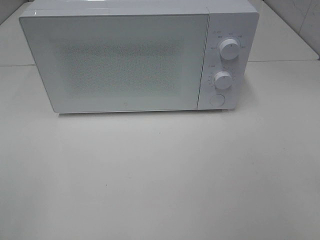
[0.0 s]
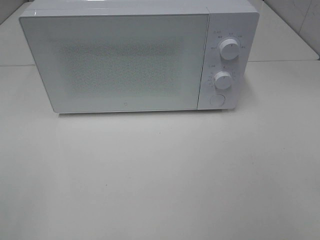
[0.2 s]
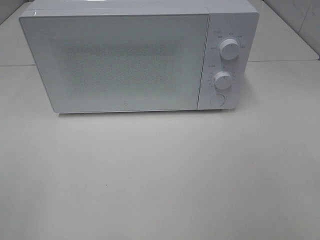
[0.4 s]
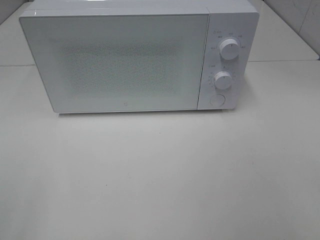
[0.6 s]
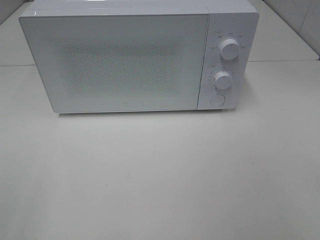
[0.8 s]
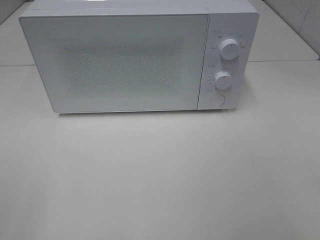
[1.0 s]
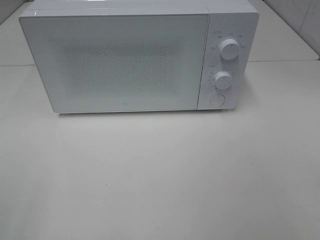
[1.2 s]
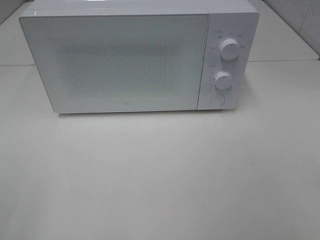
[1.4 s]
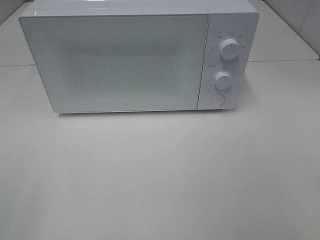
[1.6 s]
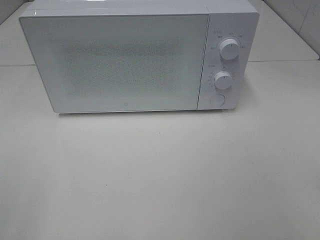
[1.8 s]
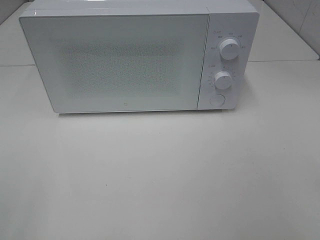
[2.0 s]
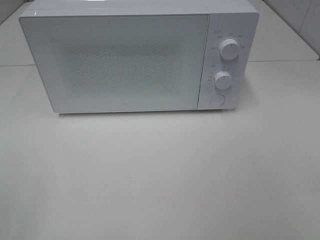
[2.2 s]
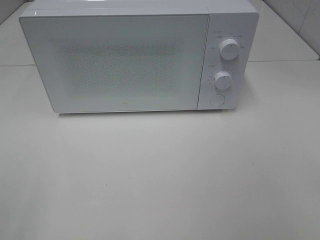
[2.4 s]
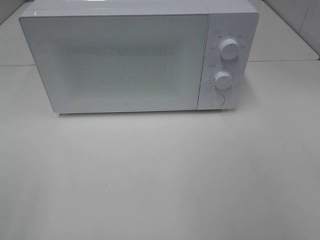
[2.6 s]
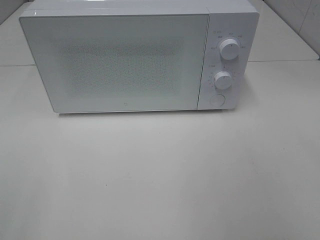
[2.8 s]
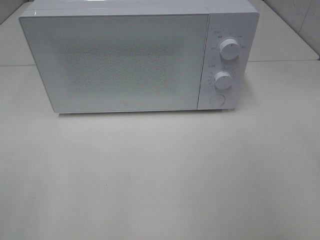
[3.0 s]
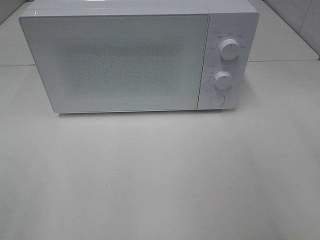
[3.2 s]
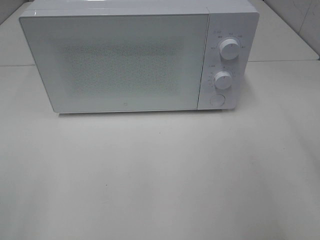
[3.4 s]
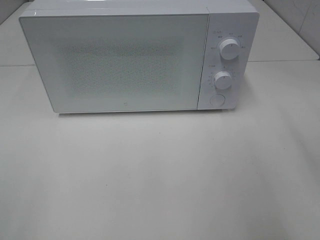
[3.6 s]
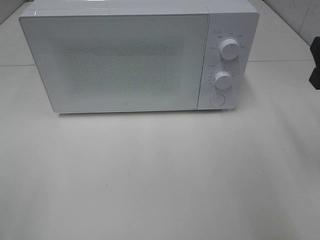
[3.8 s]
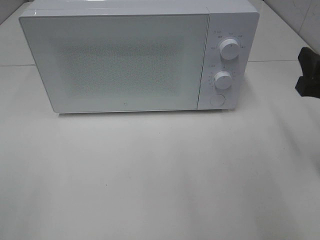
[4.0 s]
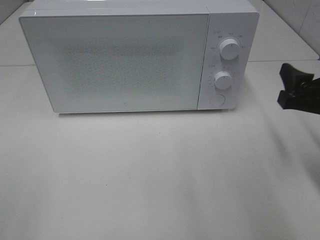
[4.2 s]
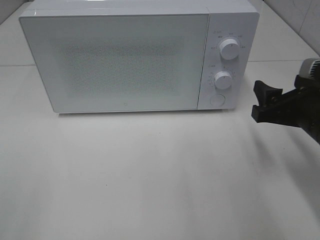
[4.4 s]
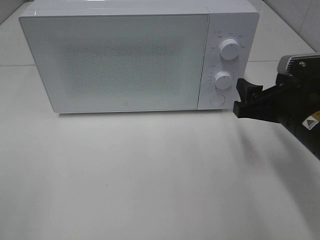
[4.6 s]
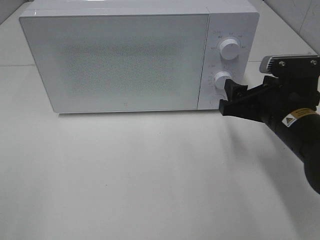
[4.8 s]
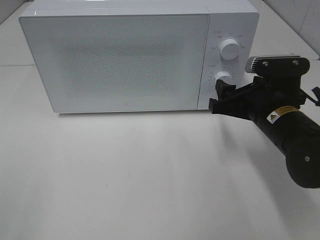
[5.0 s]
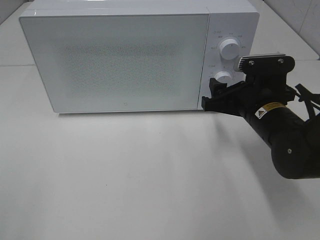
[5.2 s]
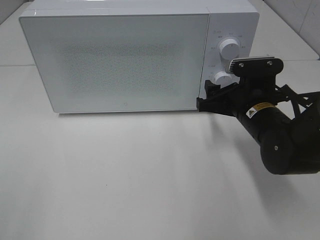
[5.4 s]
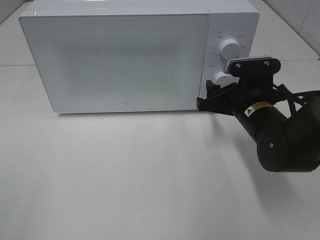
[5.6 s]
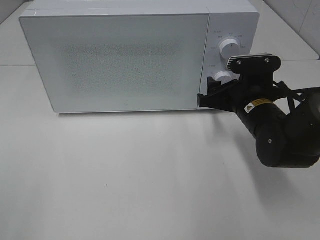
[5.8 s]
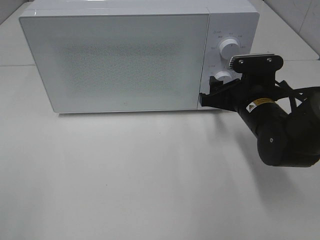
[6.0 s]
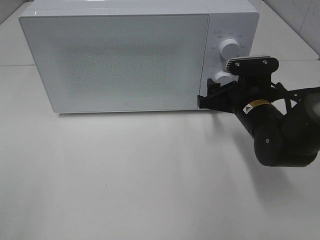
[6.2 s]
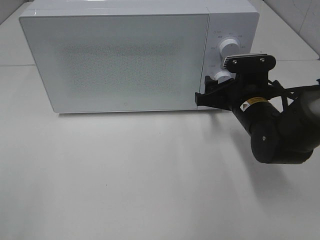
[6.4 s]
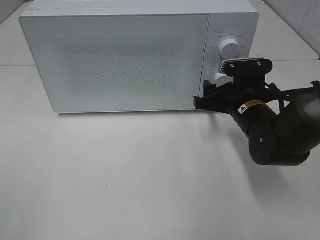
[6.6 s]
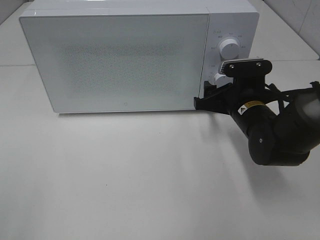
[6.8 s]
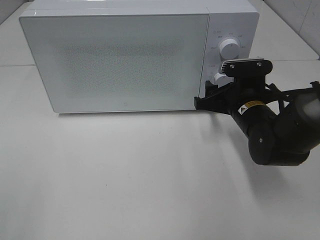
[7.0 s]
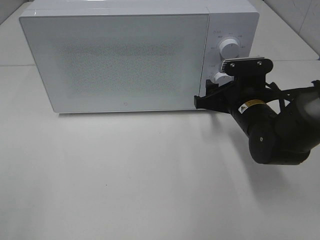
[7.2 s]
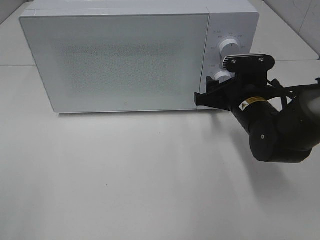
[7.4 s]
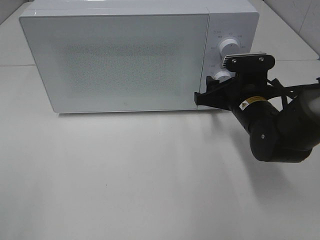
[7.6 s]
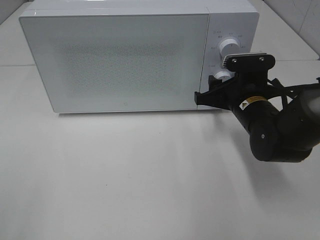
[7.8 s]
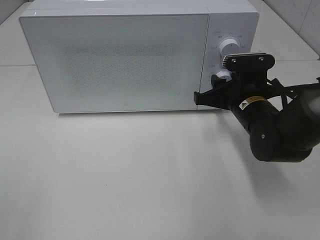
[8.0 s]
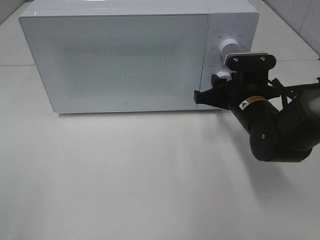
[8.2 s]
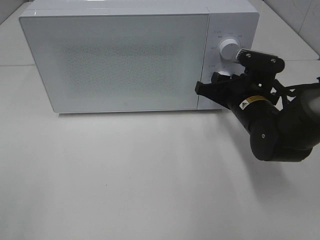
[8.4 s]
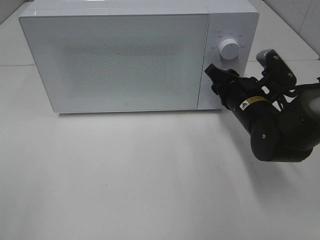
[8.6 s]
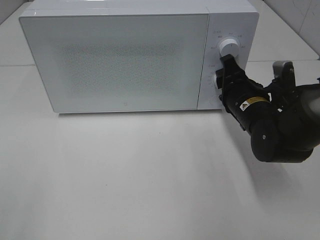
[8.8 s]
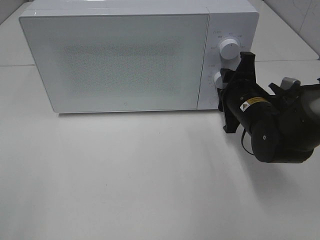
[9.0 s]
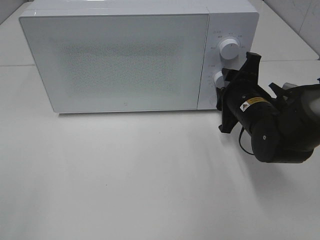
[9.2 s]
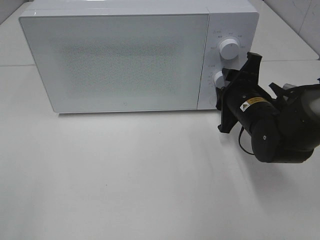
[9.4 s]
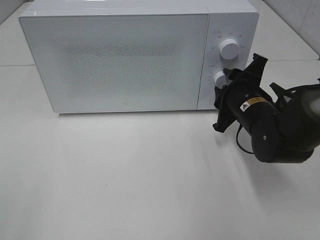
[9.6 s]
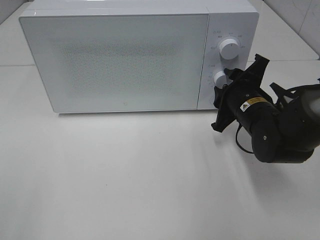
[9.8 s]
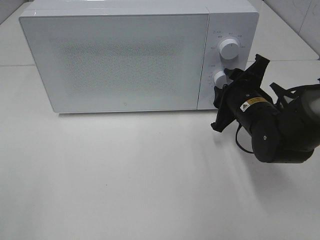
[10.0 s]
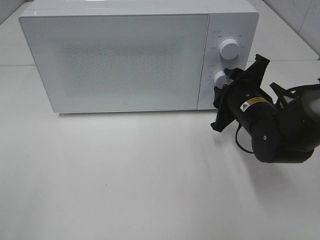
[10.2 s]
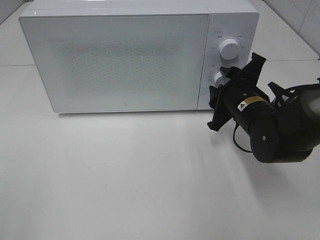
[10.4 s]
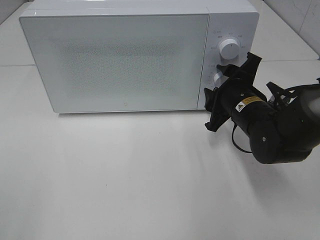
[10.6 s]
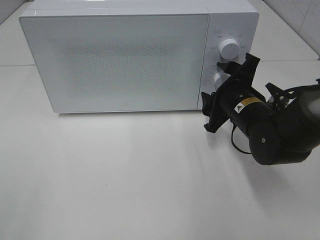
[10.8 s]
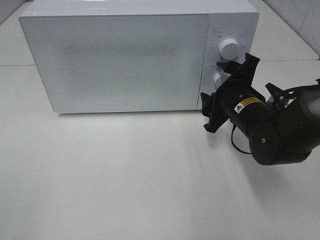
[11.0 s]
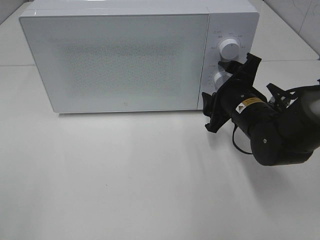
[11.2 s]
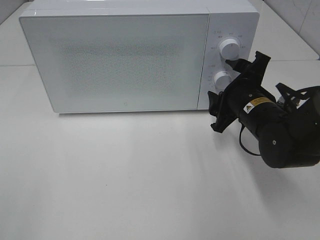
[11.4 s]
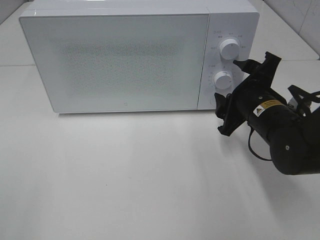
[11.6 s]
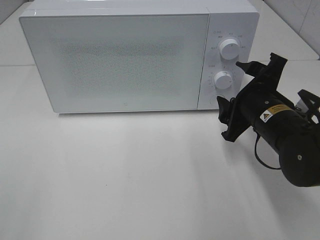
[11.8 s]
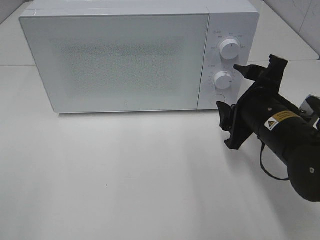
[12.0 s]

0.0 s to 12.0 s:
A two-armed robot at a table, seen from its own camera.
Task of the whole recording: Heat the burger.
Step, 0.0 to 10.4 s: Right hand: twist timer button.
0.0 to 1.6 s: Both grippers stay put.
3.0 to 4.4 s: The right gripper heads downward and forward, covering approximately 20 cm.
4.4 to 6.0 s: The right gripper goes about 10 cm forward and to the left.
6.0 to 7.6 s: The grippers make only small movements.
10.4 to 12.0 s: The right gripper shifts approximately 5 cm backward.

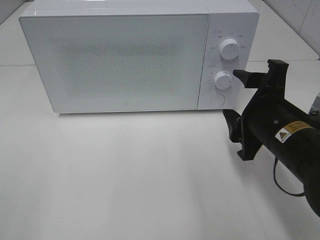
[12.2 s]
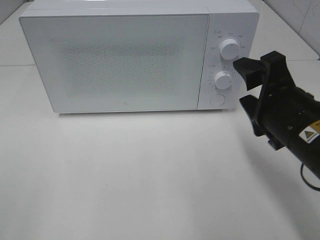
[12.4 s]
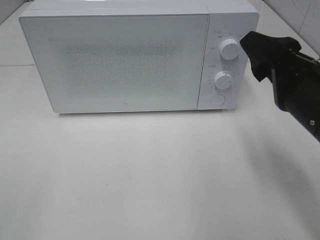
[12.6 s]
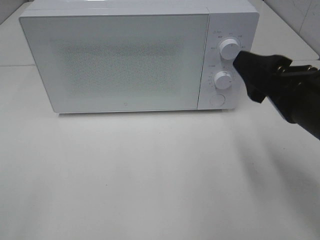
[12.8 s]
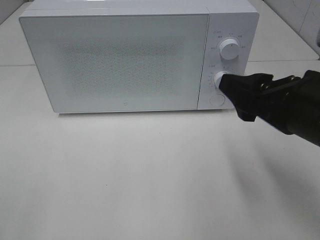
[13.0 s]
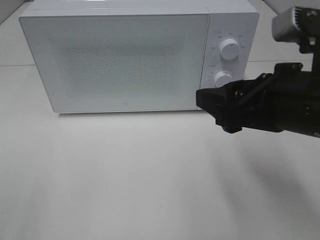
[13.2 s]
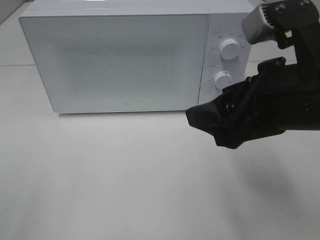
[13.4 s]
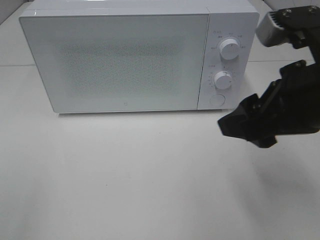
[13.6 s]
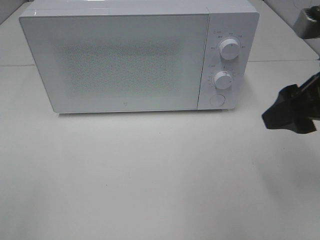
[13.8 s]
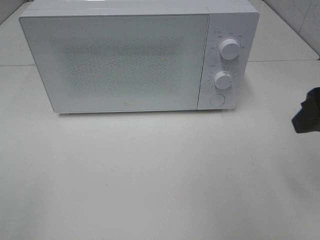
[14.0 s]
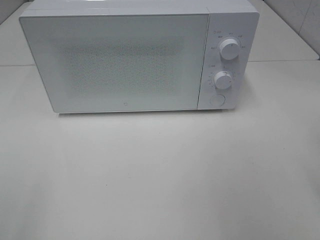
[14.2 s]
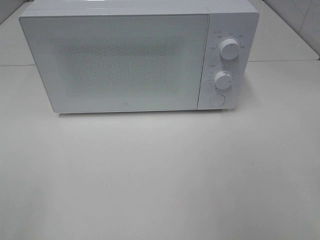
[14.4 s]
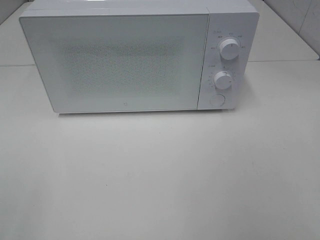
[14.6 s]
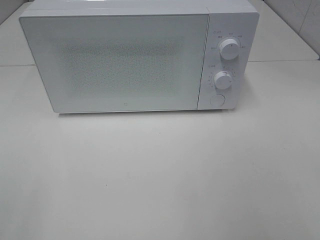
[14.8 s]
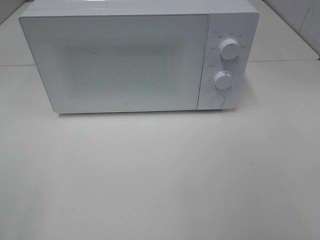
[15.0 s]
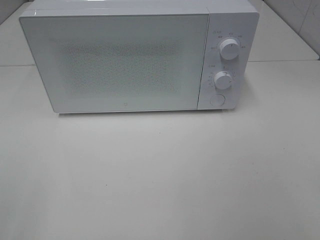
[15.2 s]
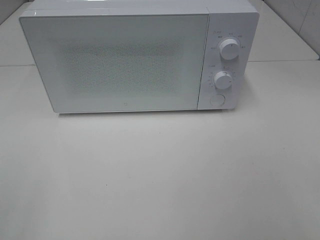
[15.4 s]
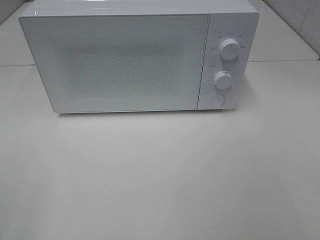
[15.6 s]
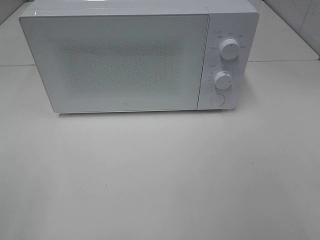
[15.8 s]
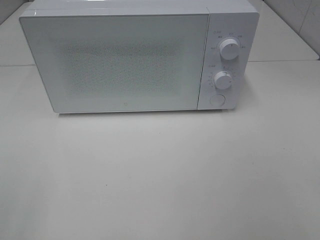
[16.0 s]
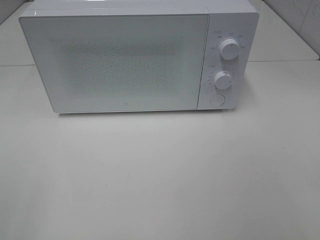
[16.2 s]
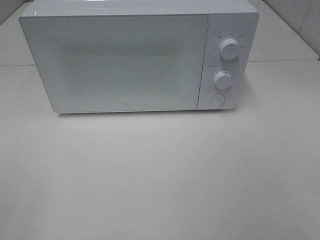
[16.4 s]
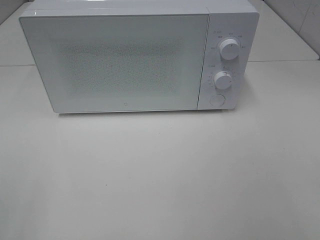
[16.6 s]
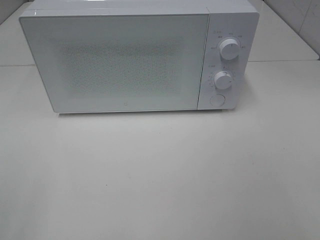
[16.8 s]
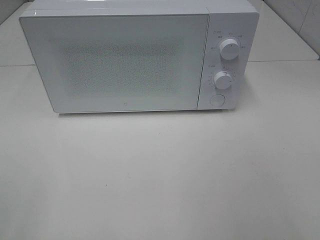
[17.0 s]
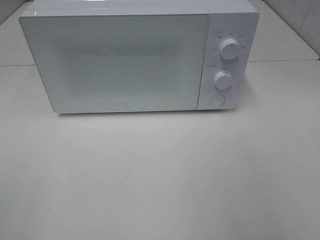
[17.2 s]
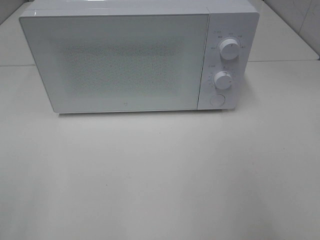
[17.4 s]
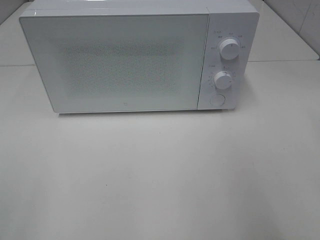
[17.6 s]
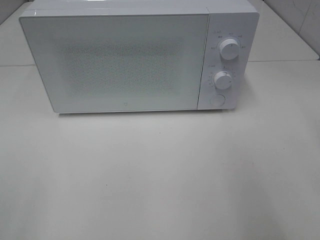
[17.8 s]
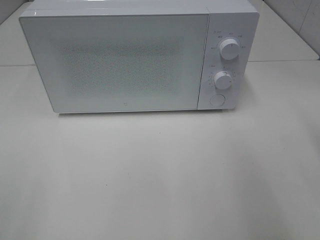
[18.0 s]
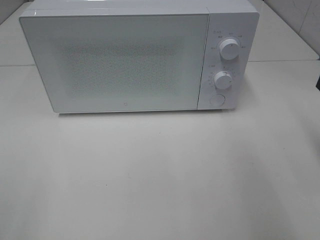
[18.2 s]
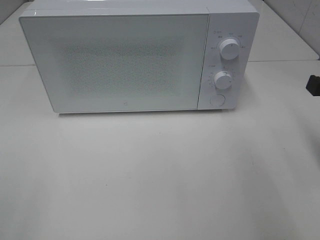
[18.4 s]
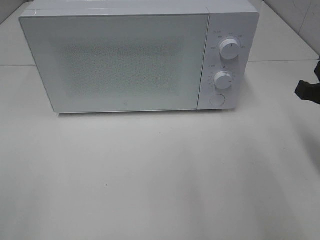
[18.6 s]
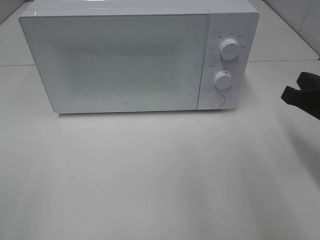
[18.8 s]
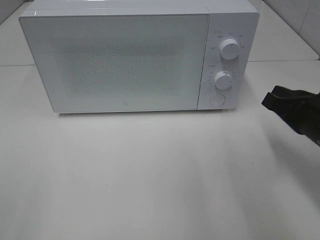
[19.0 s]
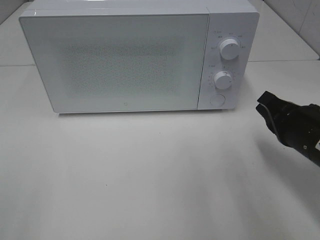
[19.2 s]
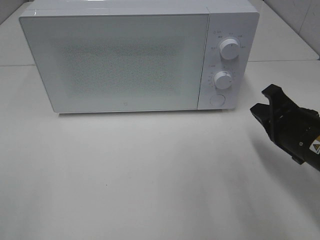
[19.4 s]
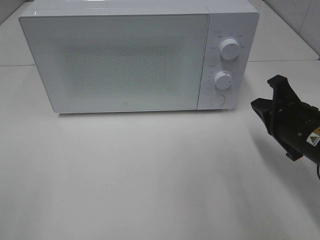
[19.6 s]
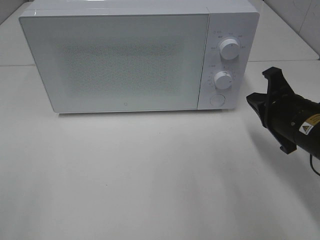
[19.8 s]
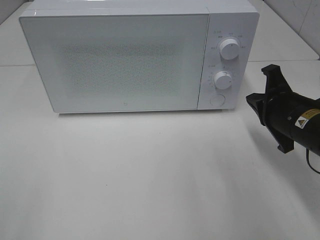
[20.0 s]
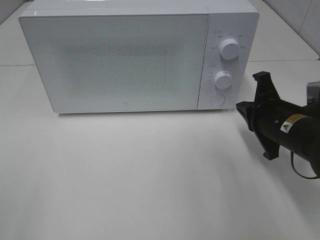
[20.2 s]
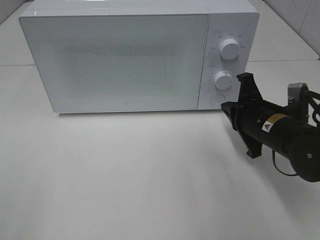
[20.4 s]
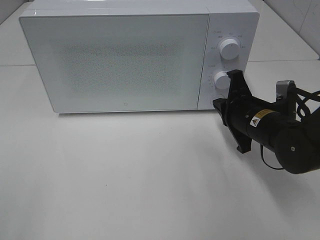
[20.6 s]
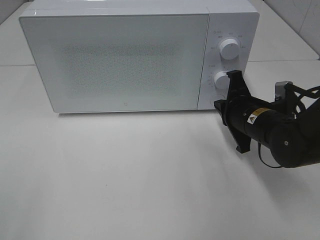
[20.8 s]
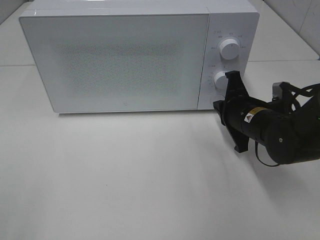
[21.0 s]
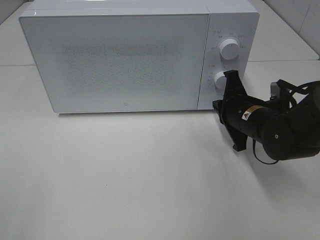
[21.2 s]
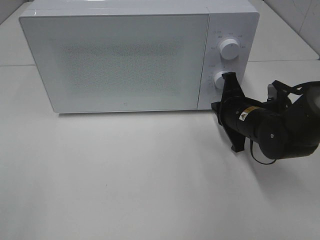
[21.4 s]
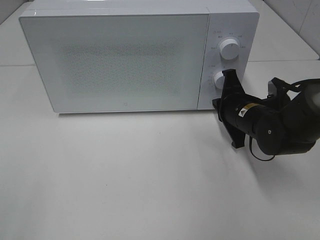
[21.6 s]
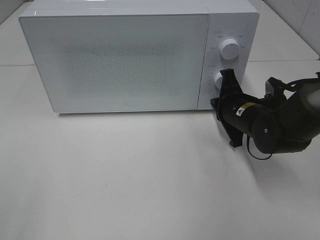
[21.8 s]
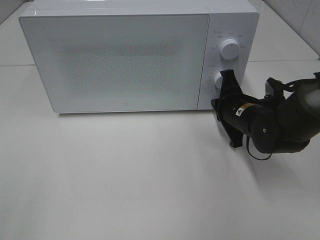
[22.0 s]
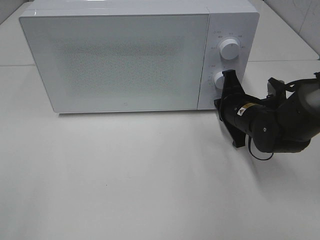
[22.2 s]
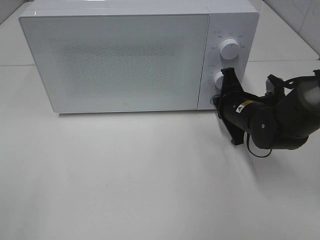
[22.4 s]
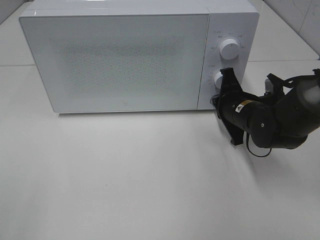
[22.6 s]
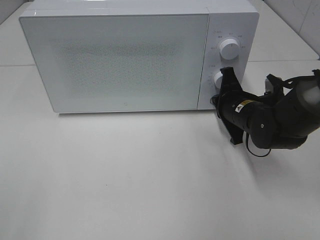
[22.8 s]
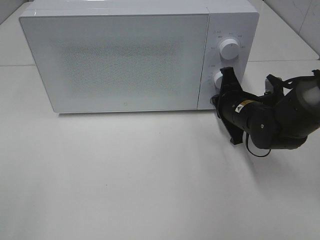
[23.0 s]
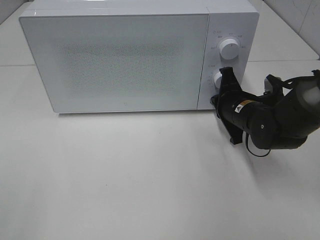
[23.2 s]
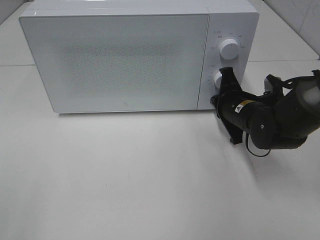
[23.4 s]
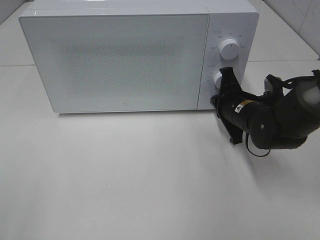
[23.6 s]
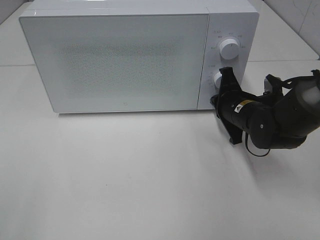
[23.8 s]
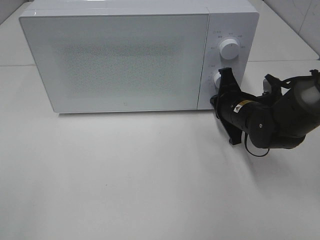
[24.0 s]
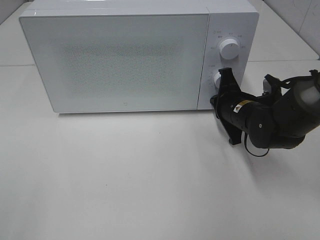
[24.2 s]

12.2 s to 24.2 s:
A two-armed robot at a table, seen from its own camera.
Task of the whole recording: Heat the burger.
12.2 to 13.8 s: The right gripper travels upward and to the right by about 10 cm.
13.8 to 15.2 s: The right gripper moves backward, roughly 20 cm.
18.2 to 19.8 s: The right gripper travels downward, forward and to the left by about 15 cm.
19.8 to 21.2 s: The right gripper shifts some 5 cm forward.
21.2 to 22.6 s: There are only small adjustments of the grippers.
22.6 to 24.2 s: Both grippers stay about where they are.
